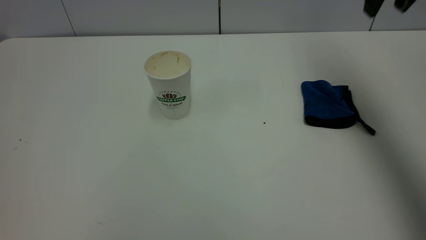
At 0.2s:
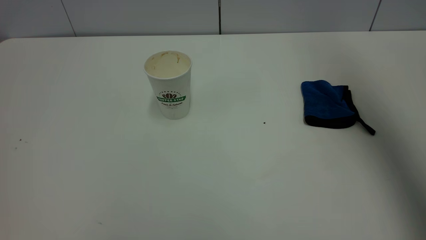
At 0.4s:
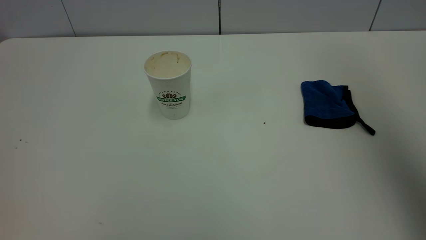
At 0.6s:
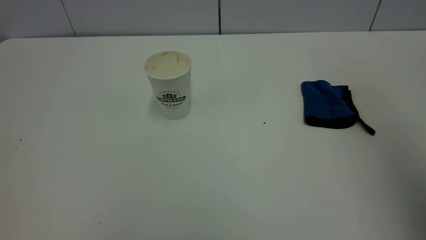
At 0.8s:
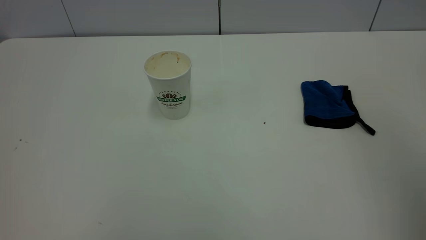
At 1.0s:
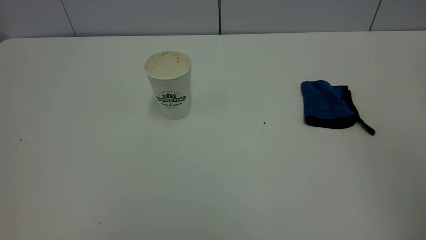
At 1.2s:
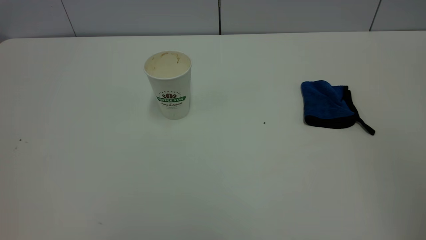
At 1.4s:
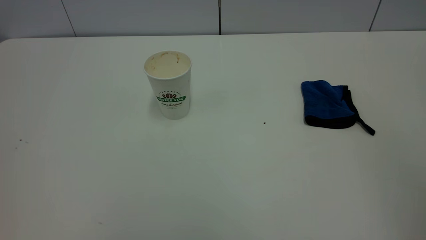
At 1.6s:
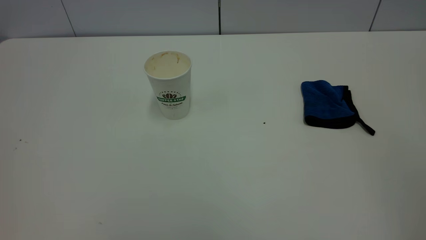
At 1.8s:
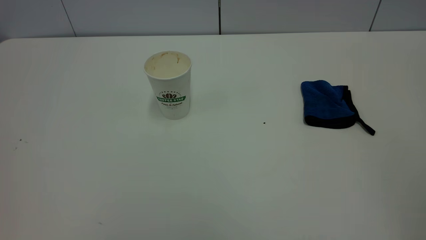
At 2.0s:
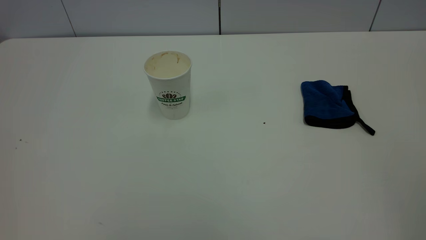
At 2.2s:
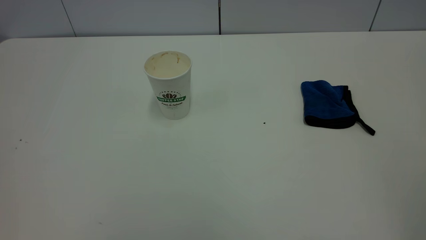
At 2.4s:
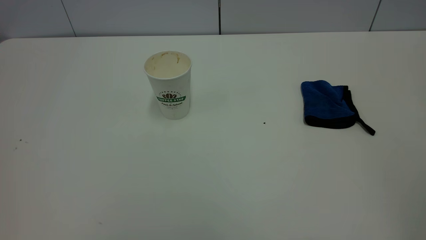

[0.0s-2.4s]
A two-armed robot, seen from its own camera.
Task of the whole recording: the left gripper pick up the fallen cup and place it upright, the right gripper grasp the blue rag and wipe the tea stain on the table, the right gripper put the blue rag back in its original position.
0.0s to 1.2s: The right gripper goes roughly 35 cm backward.

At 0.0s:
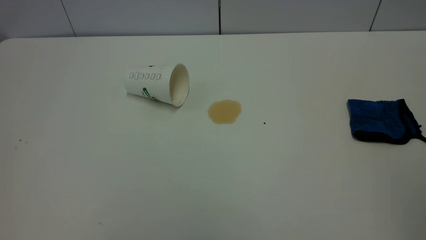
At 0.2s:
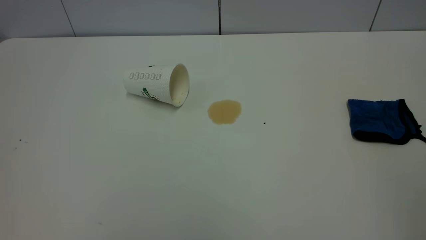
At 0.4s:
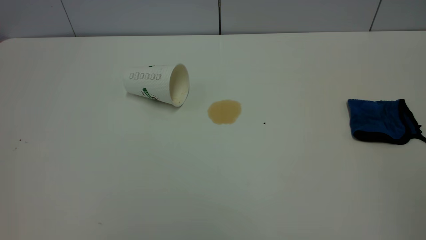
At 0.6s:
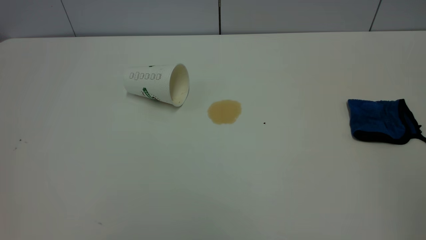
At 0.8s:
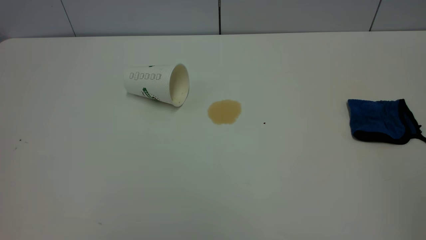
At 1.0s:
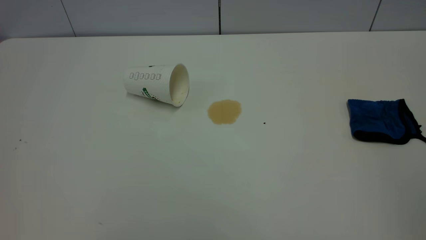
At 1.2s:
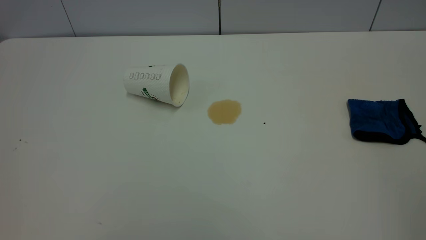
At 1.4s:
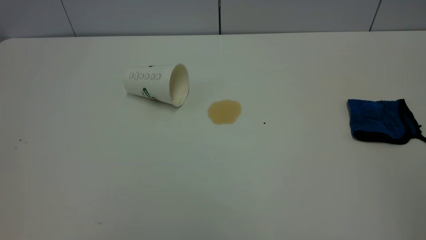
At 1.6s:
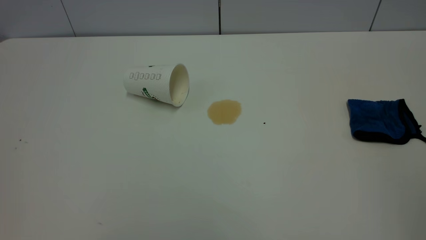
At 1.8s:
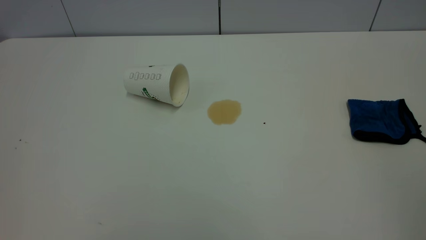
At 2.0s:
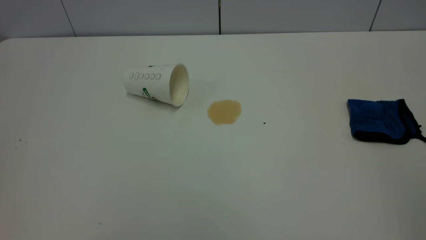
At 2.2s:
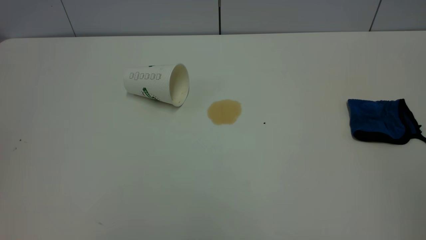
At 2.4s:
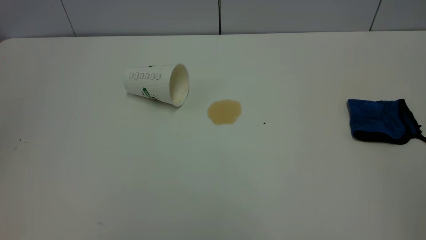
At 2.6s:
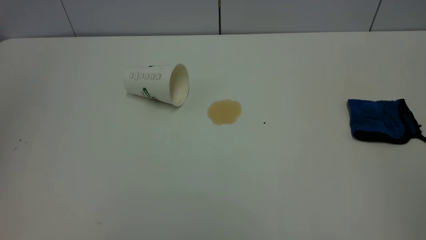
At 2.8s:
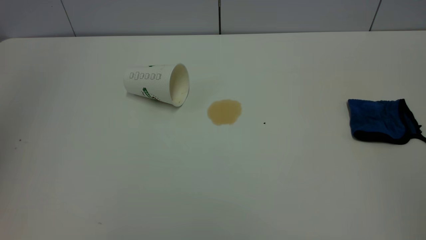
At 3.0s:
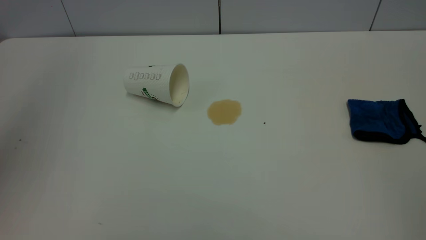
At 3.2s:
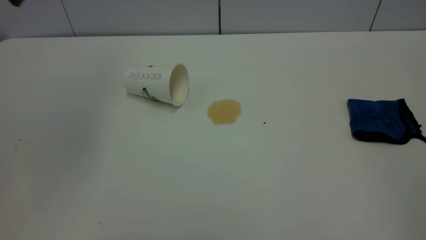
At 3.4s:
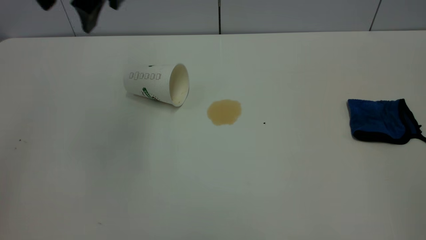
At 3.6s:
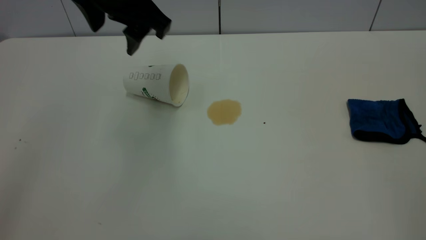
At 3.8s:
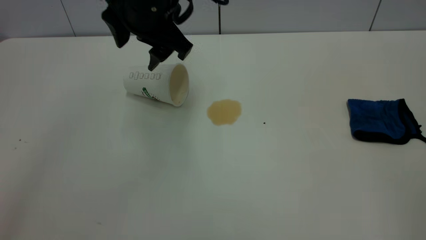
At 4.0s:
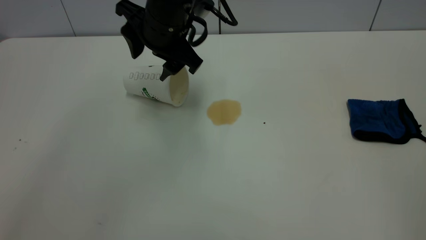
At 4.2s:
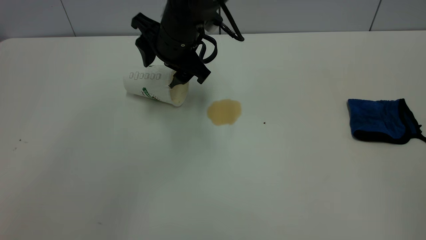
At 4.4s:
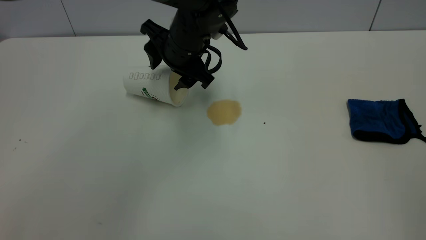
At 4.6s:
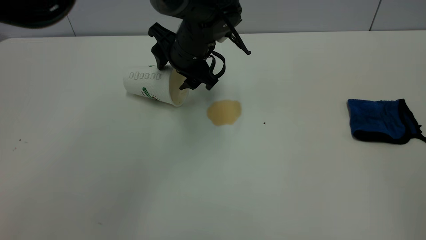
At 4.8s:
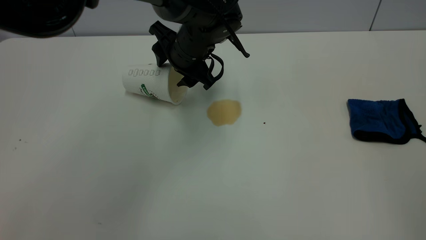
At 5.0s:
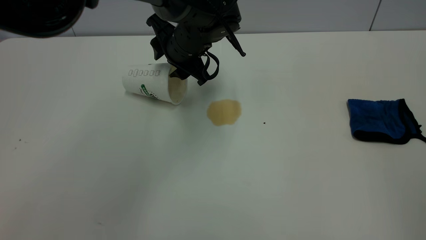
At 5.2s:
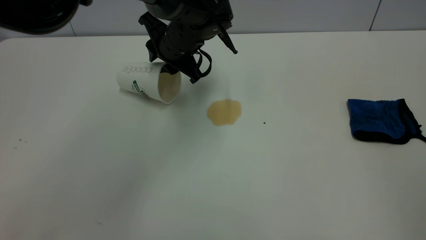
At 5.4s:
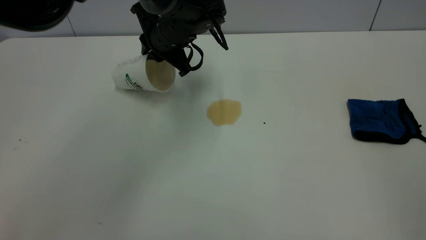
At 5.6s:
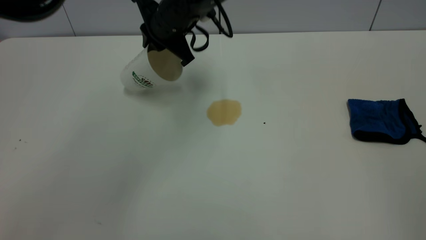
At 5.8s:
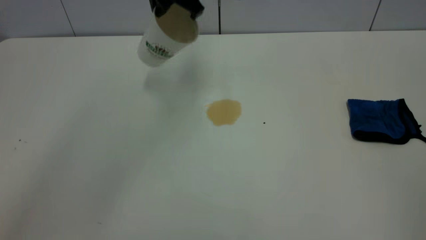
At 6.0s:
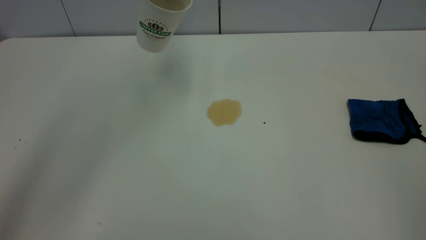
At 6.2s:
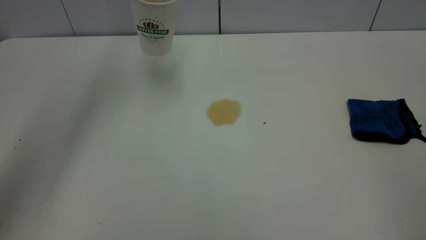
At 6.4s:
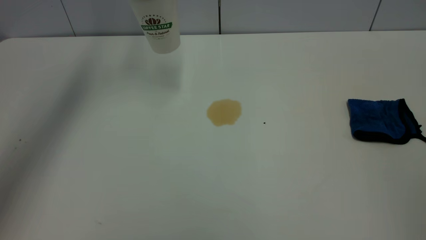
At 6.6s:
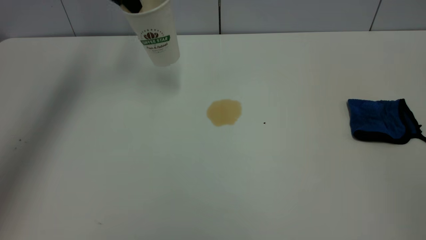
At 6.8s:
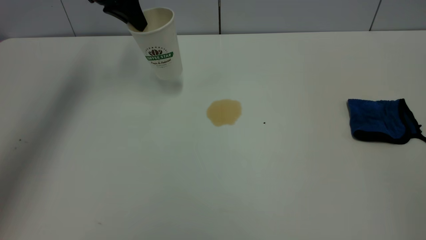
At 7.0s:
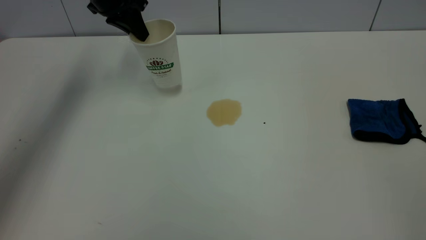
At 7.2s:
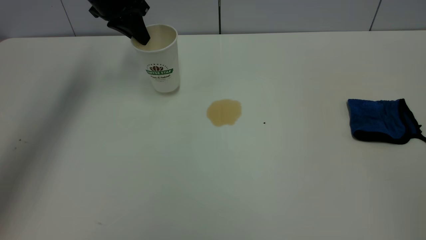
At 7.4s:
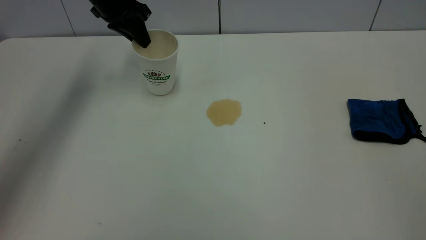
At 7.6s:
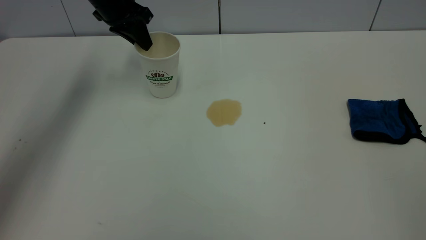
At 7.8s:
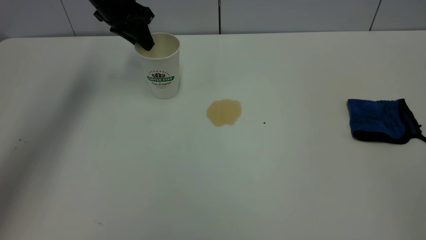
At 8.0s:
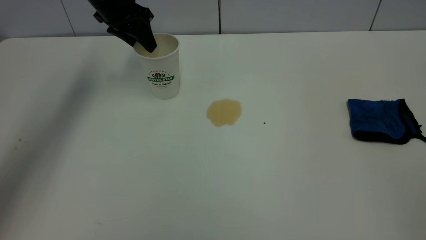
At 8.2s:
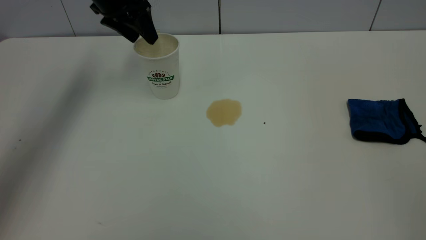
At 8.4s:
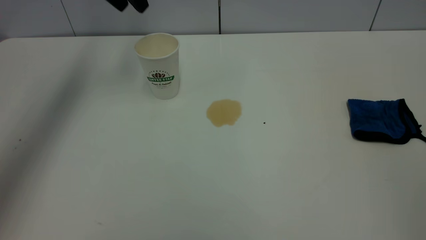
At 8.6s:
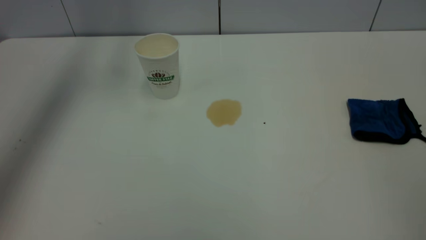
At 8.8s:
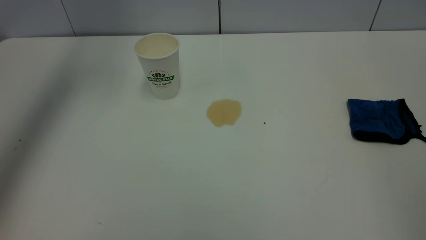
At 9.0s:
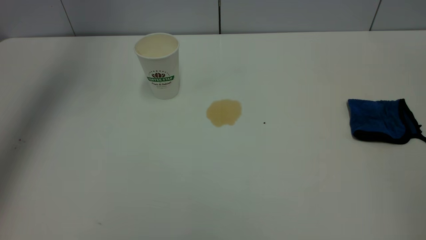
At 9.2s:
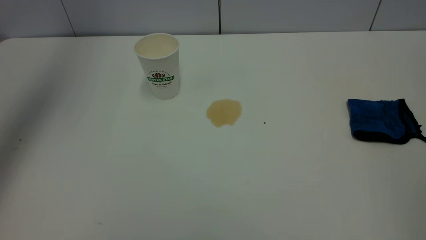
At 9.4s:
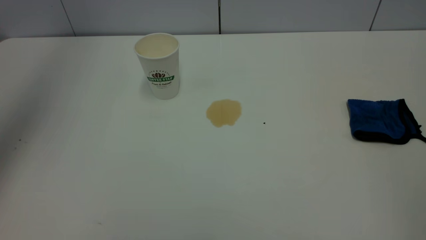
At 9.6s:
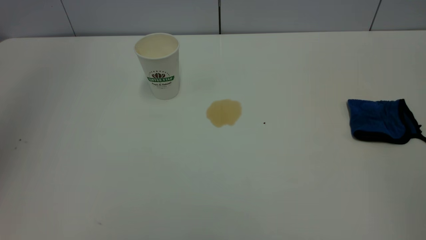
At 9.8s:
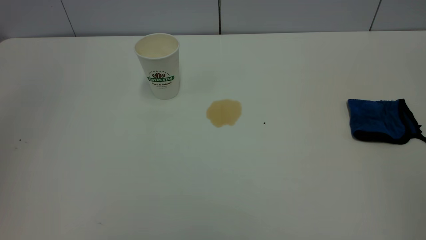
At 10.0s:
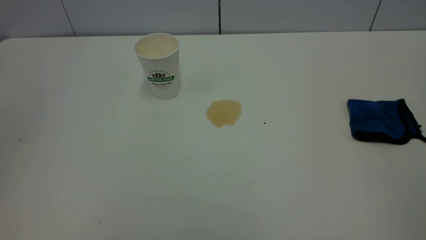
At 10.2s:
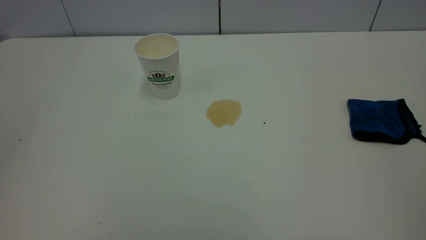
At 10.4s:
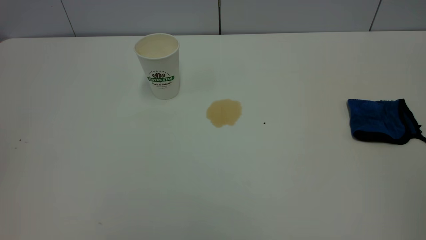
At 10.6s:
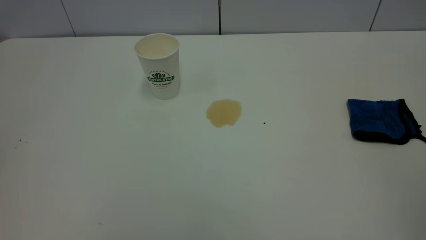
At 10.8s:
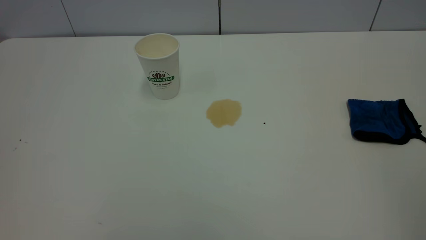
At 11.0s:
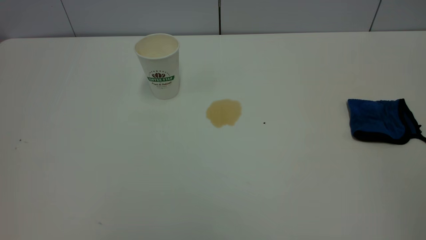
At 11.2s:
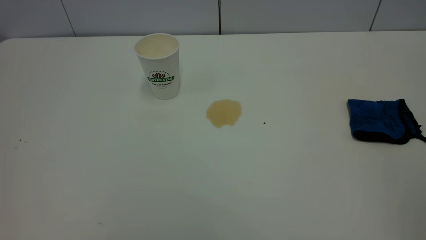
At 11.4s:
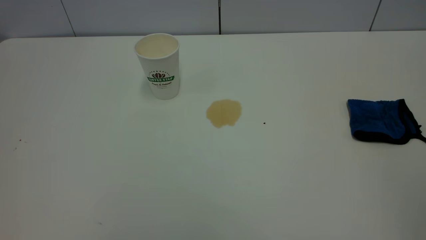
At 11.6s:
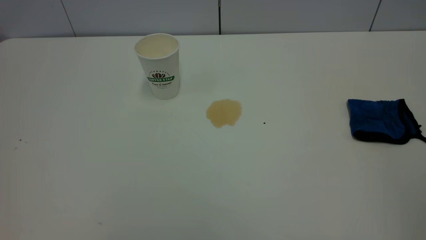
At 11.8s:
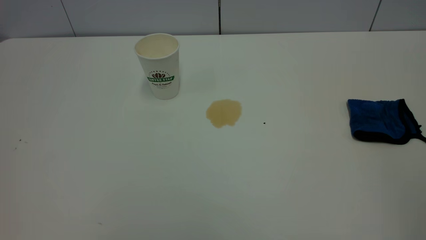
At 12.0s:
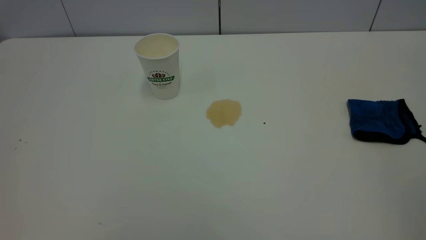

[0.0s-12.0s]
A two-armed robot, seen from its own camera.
Task of the whole recording: the left gripper pick up the fallen cup and place it upright, the right gripper grasp the blue rag and wipe the tea stain on the table, the right gripper put the blue rag back in its original position.
Step, 0.0s to 8.2s: Stand the paper cup upright.
0.0s to 1.6s: Neither gripper changes place.
1.6s to 3.0s: The left gripper shifts some 30 cm forward.
3.0s to 4.4s: The left gripper heads downward, to the right and forward, covering about 35 cm.
4.4s to 6.0s: The left gripper goes some 15 cm upward, and closes up.
6.0s to 7.6s: The left gripper shifts roughly 15 cm downward, to the left and forward.
7.6s to 9.0s: The left gripper is displaced upward by roughly 20 cm, and opens up.
9.0s to 10.4s: The left gripper shifts roughly 40 cm backward.

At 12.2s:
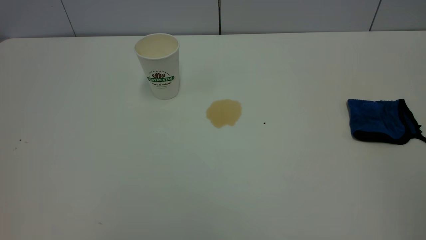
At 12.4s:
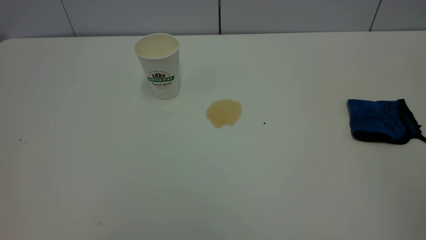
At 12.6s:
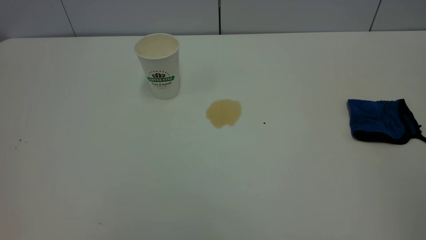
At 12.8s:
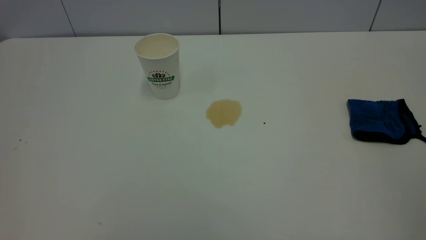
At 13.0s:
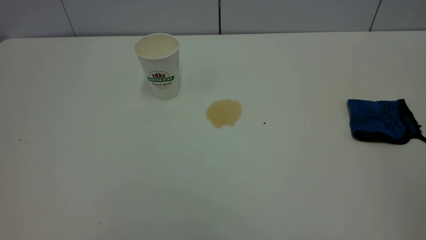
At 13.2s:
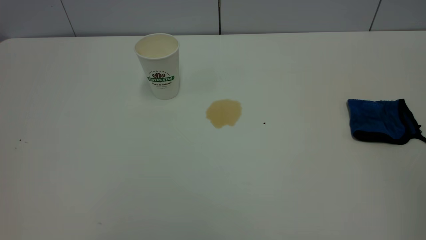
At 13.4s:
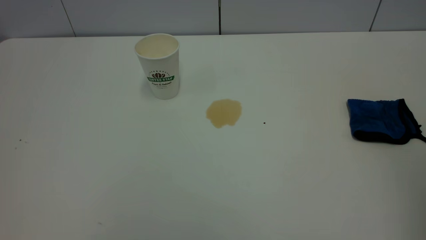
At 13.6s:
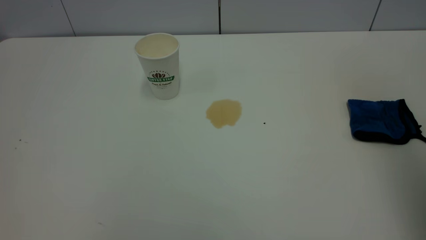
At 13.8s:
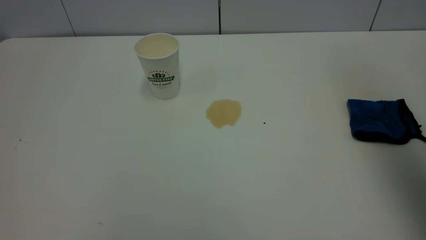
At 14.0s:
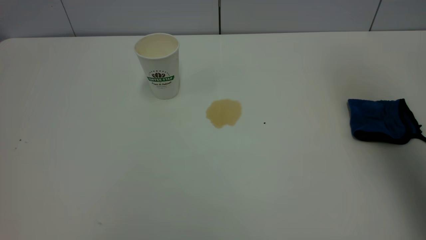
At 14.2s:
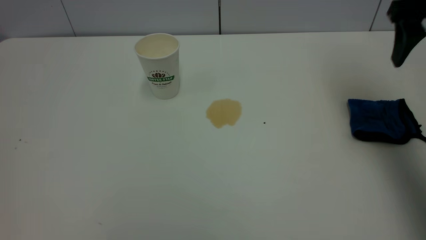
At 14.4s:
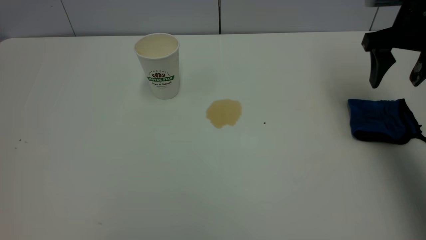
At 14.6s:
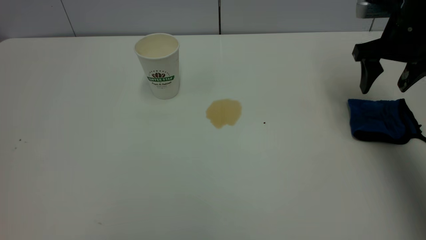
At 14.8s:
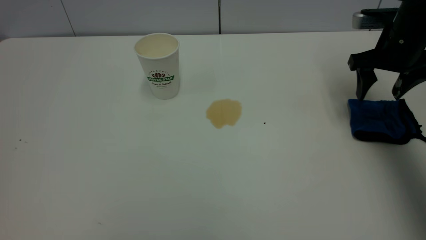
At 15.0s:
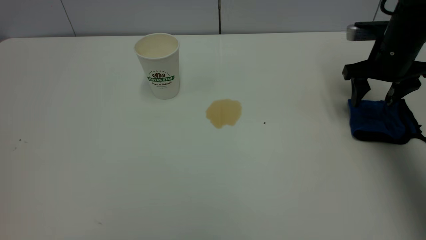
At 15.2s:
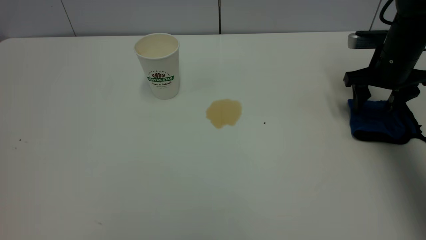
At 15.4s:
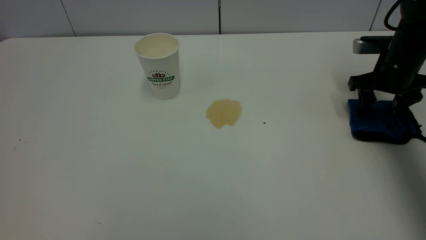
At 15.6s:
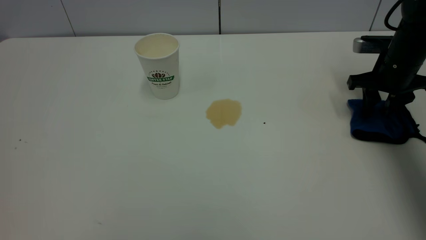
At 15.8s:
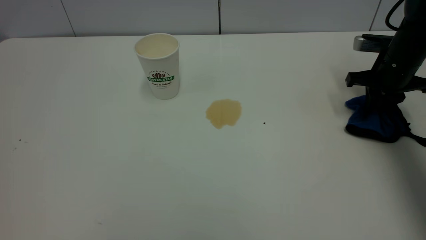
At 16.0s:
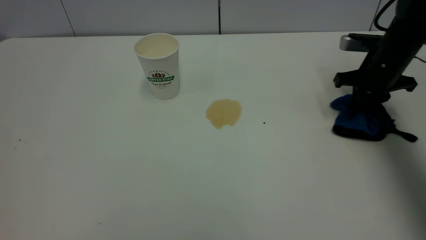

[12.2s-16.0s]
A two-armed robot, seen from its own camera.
Task of the whole recording: the left gripper pick up the fallen cup and place it upright, the right gripper grasp the blue rag and wipe the tea stain on the table, the right gripper put the blue rag back in its original position.
13.4s to 14.8s: The right gripper is displaced forward and downward by about 40 cm, and opens.
14.8s to 16.0s: The right gripper heads downward, covering roughly 5 cm, and closes up.
